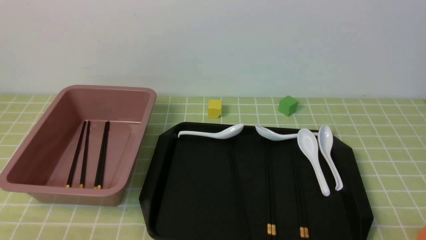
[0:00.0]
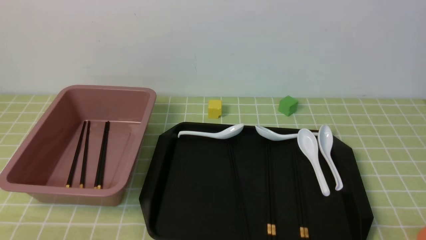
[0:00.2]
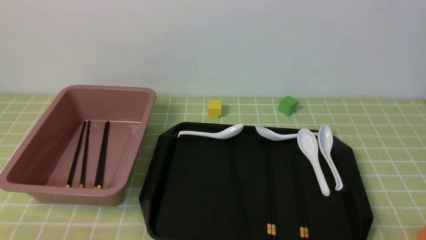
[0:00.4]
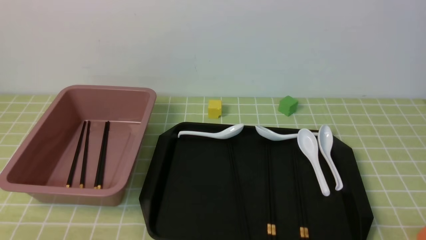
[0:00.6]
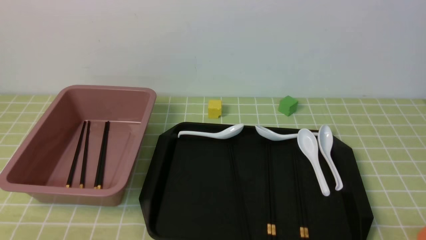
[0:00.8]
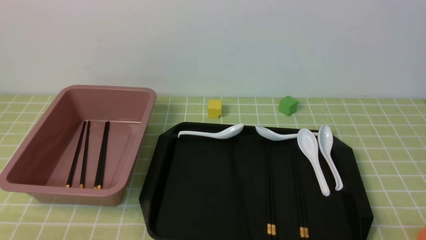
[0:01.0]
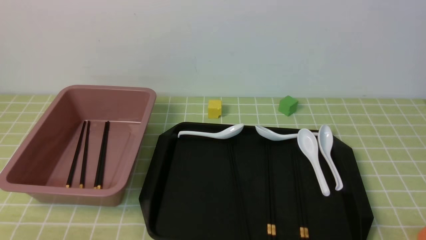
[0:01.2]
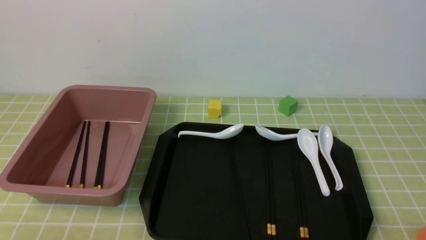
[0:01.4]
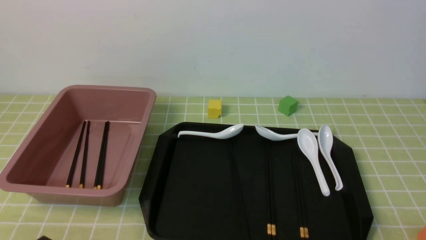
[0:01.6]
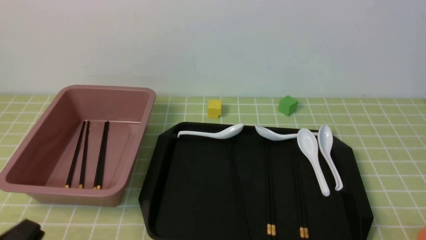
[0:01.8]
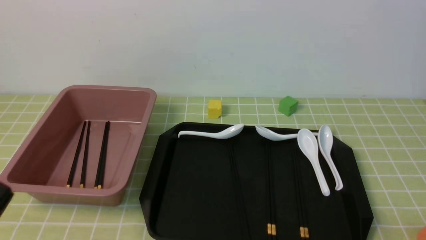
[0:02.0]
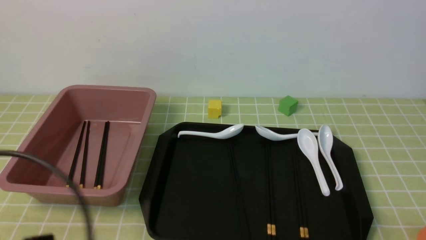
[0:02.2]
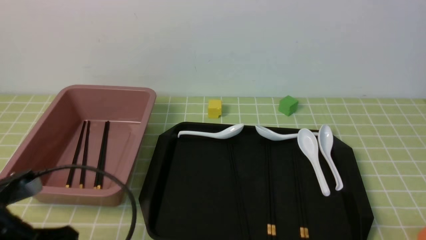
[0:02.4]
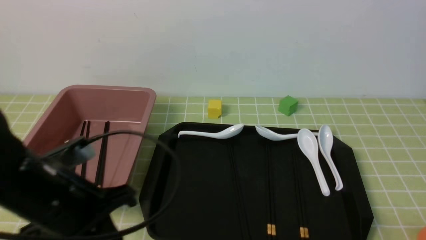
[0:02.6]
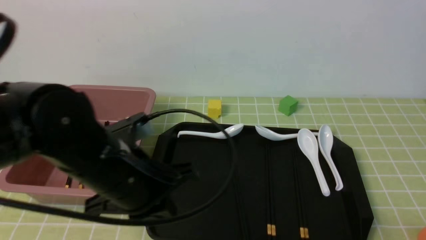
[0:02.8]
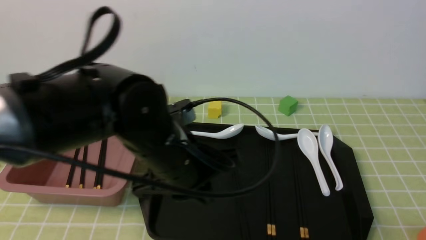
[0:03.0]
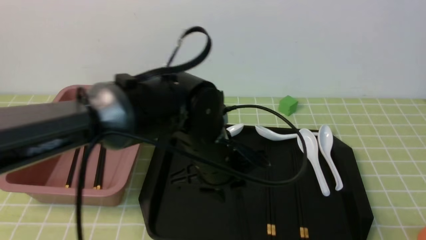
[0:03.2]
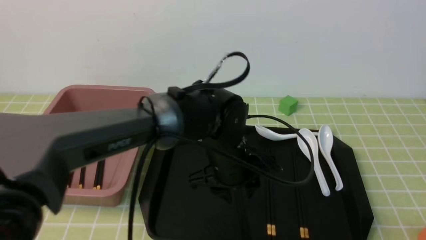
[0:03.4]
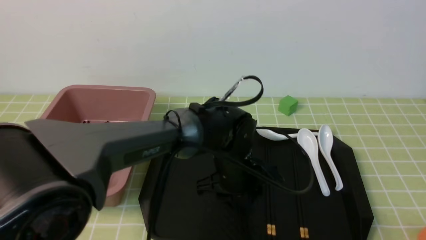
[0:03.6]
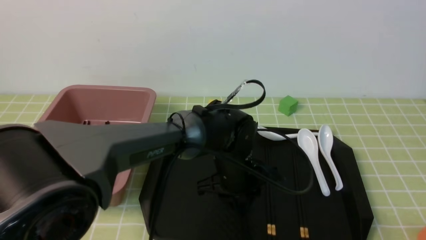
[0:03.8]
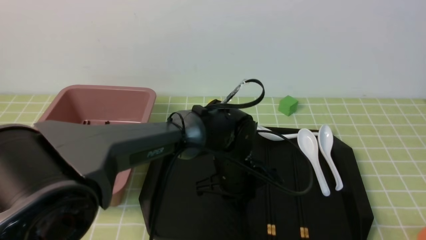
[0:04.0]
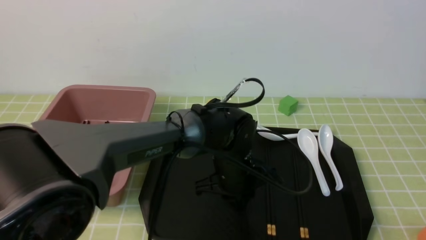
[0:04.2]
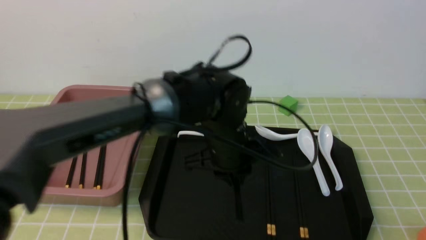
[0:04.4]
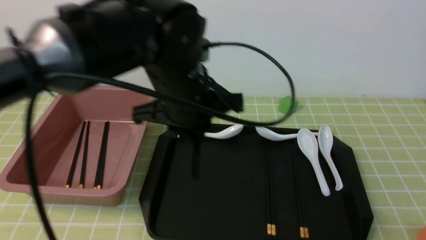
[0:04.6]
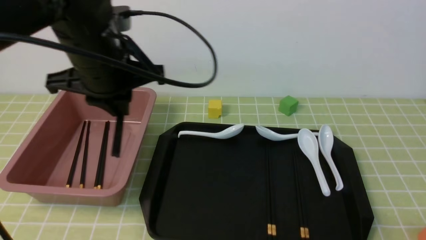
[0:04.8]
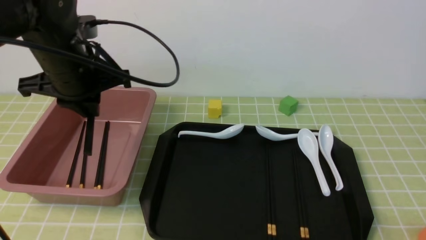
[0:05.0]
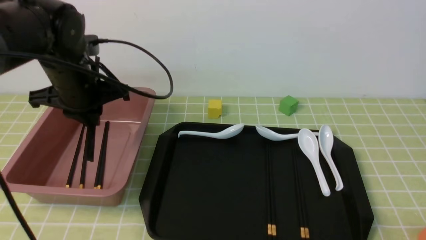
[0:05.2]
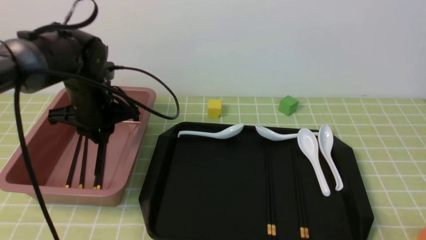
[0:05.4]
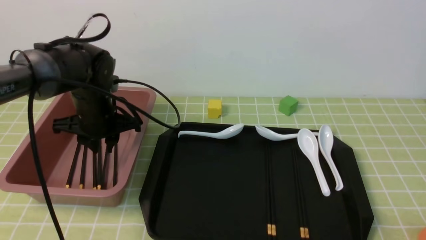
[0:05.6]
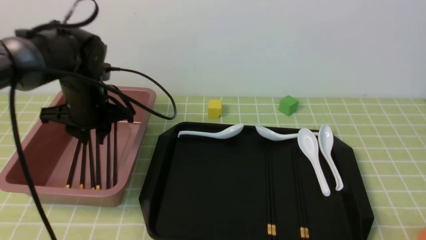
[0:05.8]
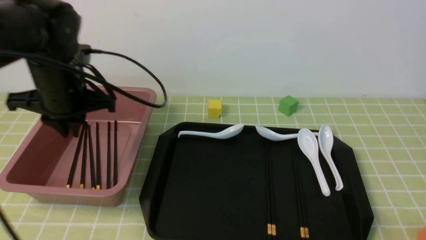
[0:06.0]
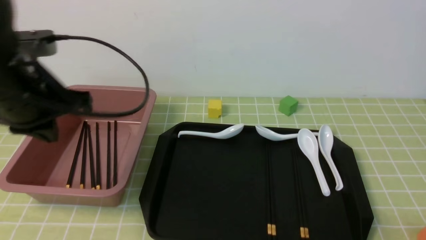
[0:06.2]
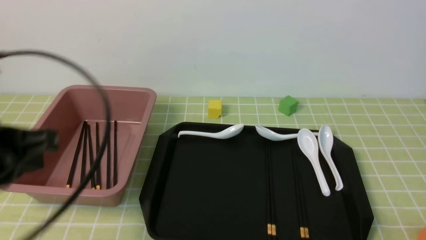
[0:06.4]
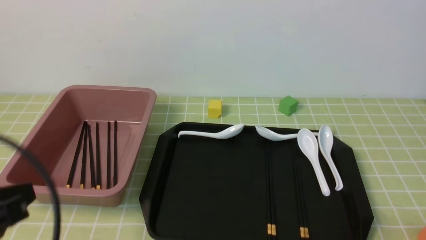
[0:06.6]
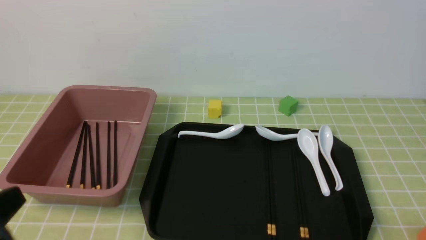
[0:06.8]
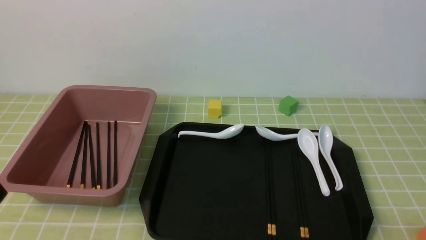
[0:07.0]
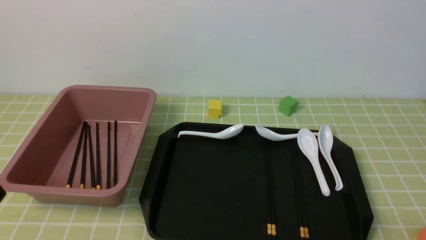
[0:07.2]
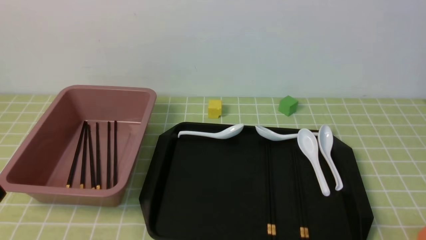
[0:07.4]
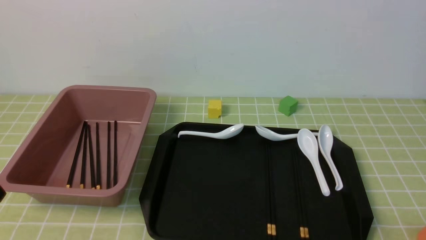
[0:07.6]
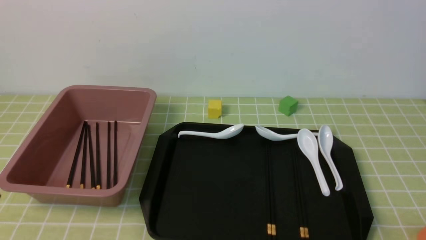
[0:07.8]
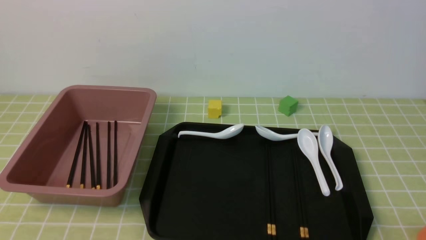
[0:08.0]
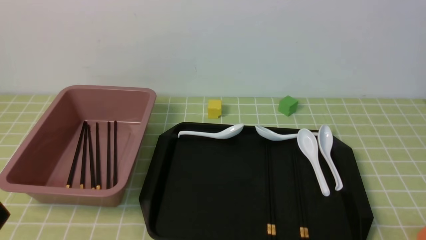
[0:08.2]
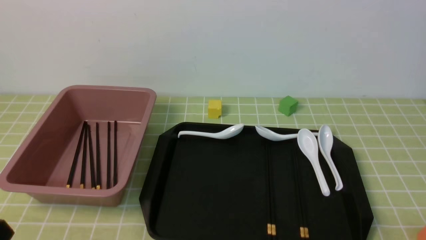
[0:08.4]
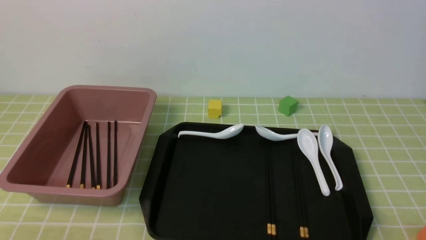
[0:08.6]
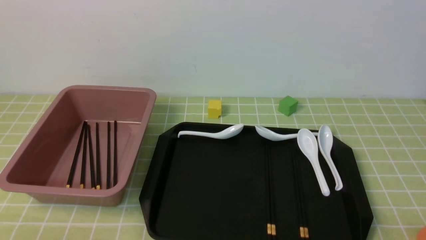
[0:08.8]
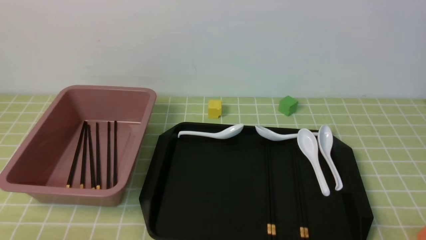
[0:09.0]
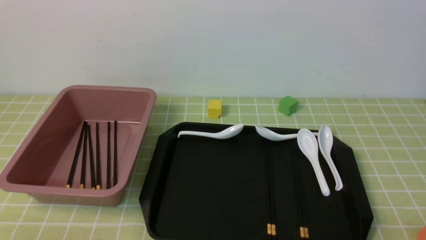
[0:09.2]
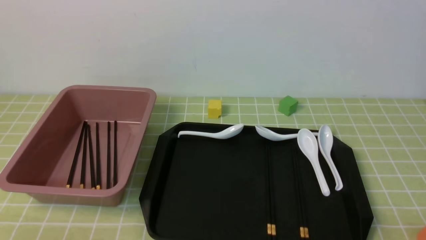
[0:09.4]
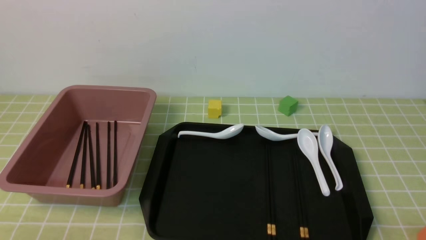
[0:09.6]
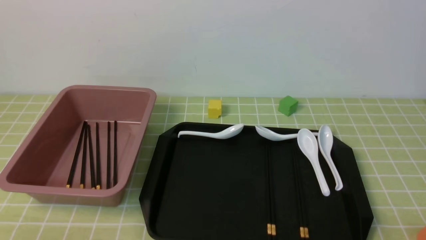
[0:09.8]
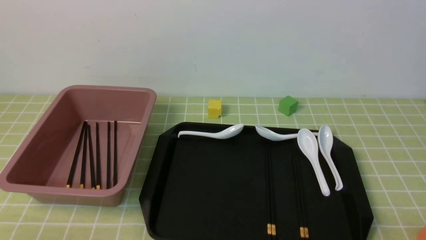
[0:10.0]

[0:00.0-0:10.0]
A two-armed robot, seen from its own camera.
Step, 0:00.0 to 0:04.4: use the left arm to grab a pair of chopsticks.
Step, 0:04.6 to 0:05.8: use the left arm to put the chopsticks into the lunch box.
0:01.4 to 0:02.8: The left gripper moves forward, to the right and upward, roughly 20 cm.
0:02.8 to 0:04.2: The left gripper heads to the right, forward and downward, covering roughly 25 cm, and opens.
0:04.2 to 0:05.8: The left gripper shifts about 25 cm to the left.
0:05.8 to 0:07.2: The left gripper is displaced backward by roughly 35 cm, and closes its fingers.
